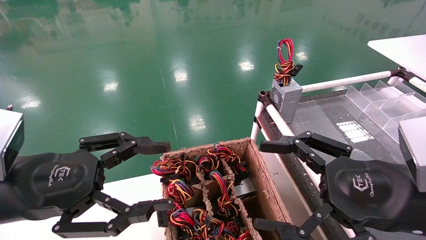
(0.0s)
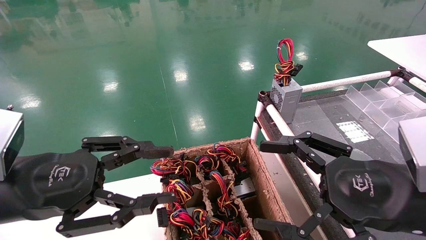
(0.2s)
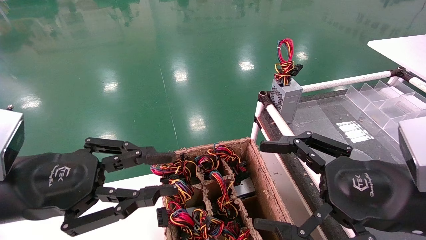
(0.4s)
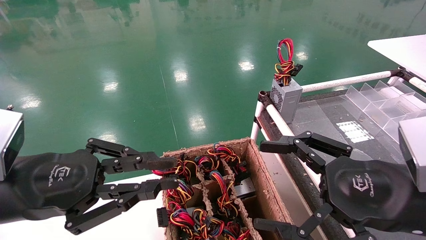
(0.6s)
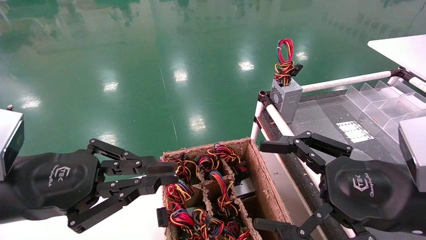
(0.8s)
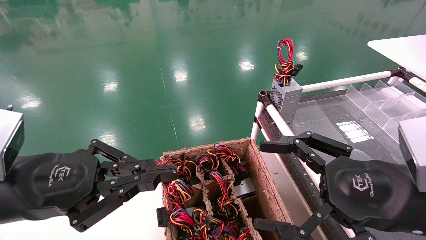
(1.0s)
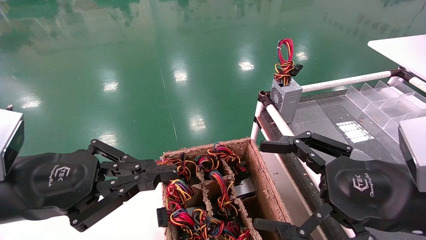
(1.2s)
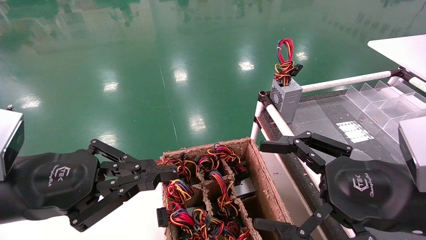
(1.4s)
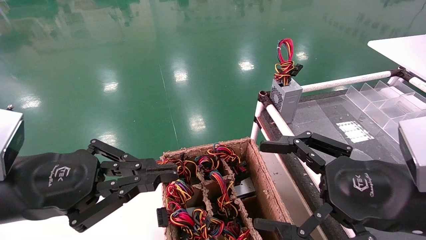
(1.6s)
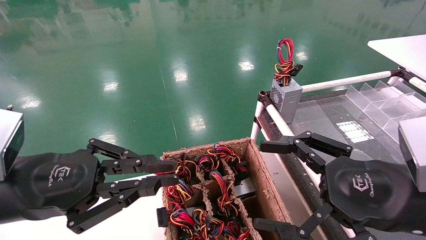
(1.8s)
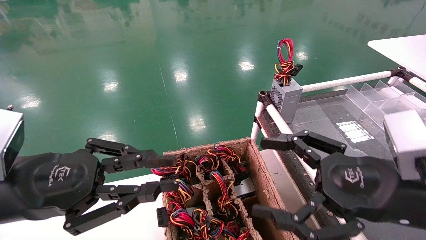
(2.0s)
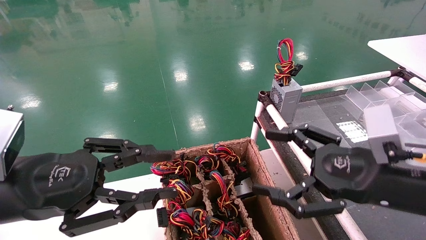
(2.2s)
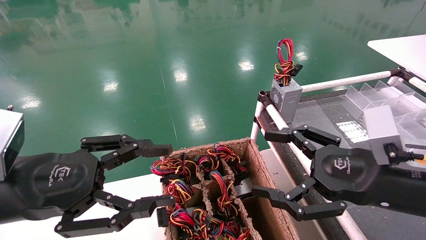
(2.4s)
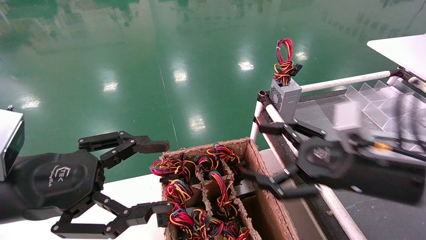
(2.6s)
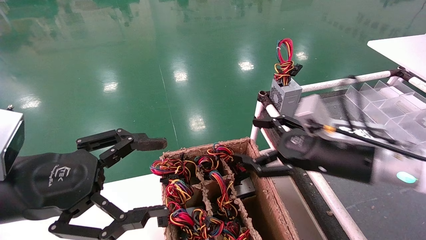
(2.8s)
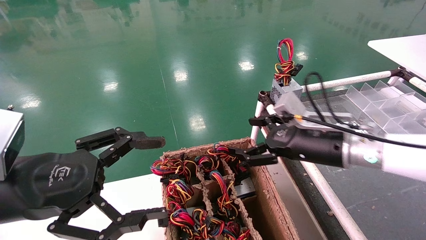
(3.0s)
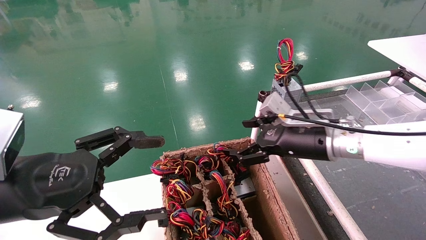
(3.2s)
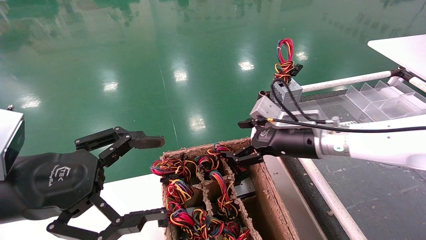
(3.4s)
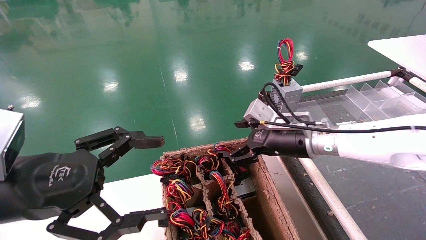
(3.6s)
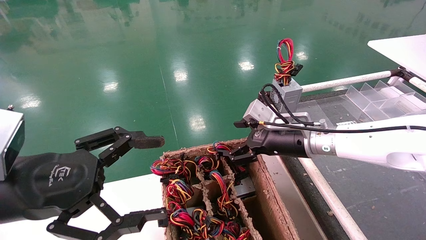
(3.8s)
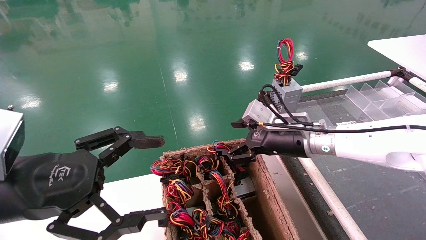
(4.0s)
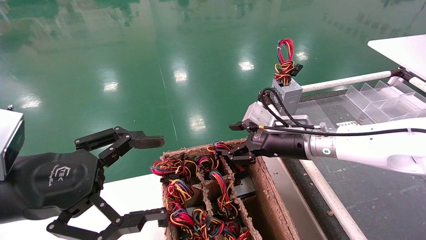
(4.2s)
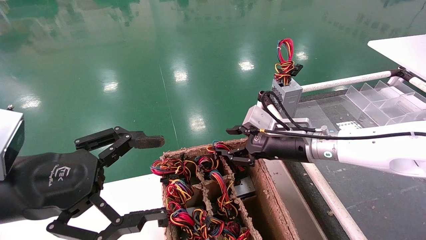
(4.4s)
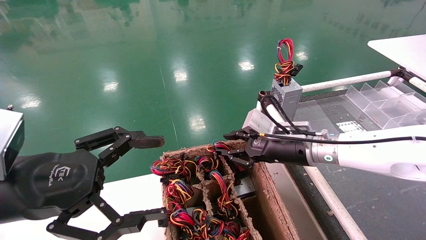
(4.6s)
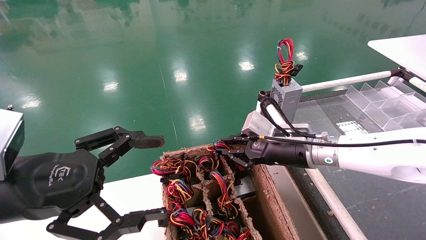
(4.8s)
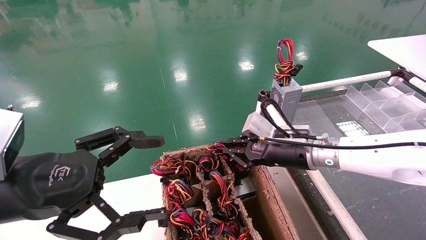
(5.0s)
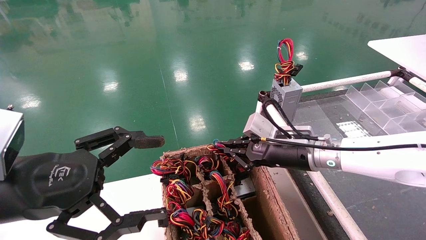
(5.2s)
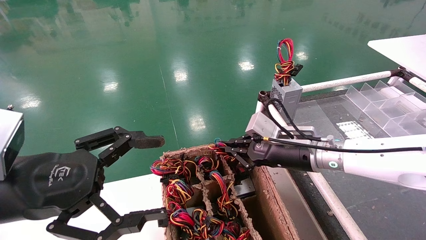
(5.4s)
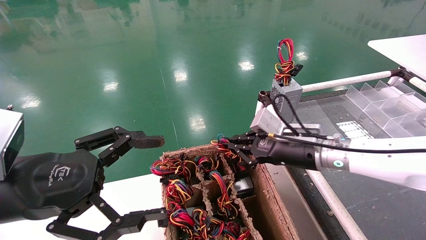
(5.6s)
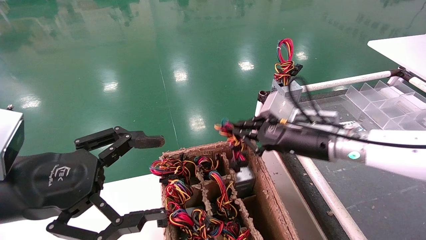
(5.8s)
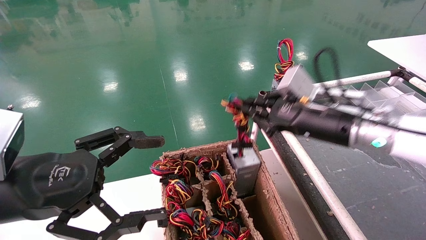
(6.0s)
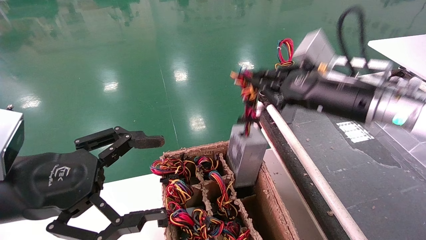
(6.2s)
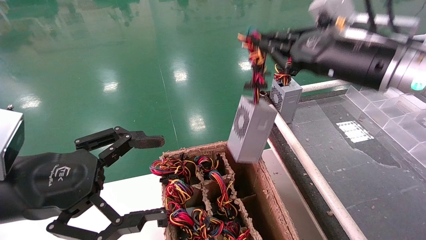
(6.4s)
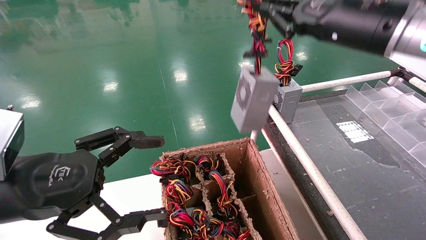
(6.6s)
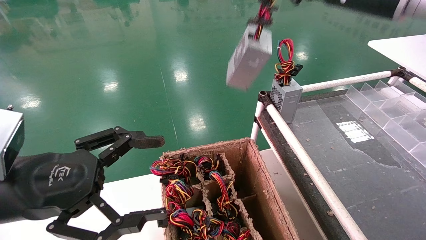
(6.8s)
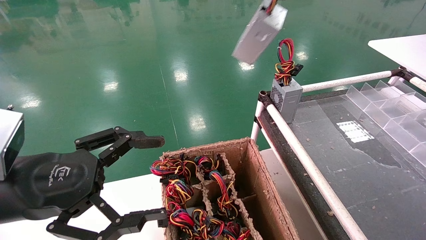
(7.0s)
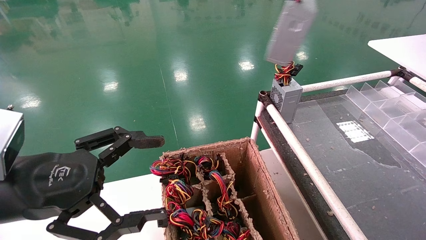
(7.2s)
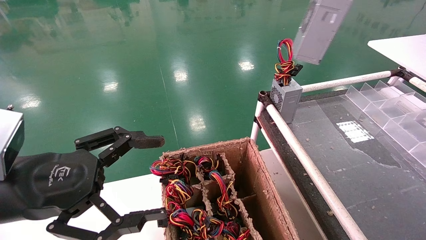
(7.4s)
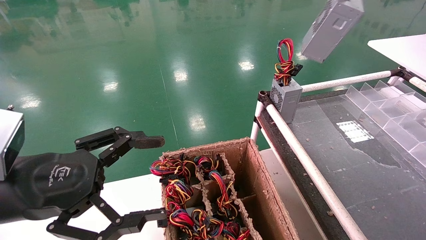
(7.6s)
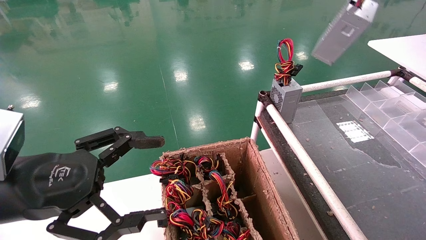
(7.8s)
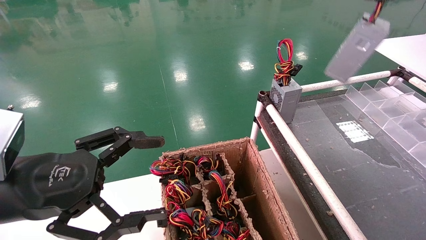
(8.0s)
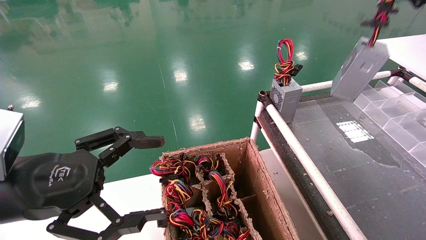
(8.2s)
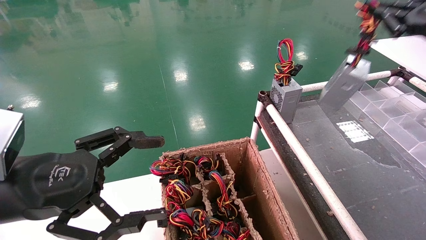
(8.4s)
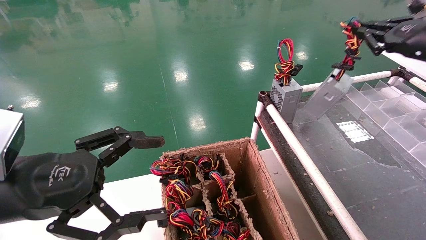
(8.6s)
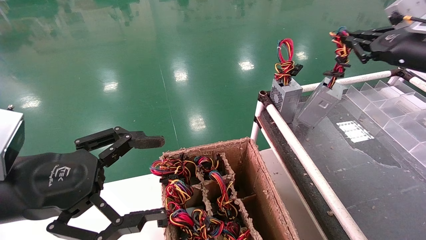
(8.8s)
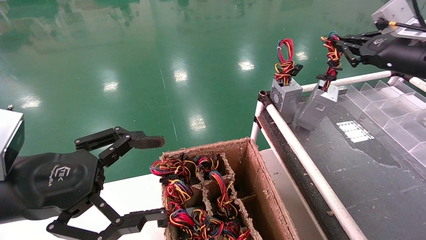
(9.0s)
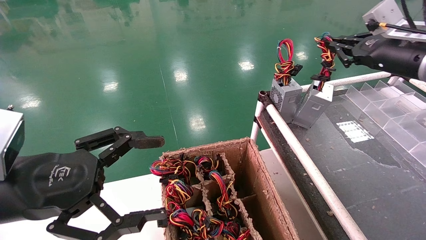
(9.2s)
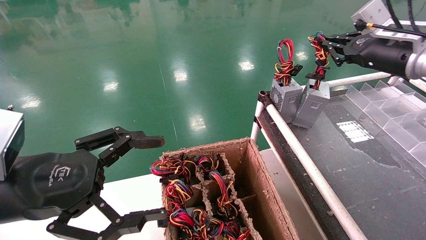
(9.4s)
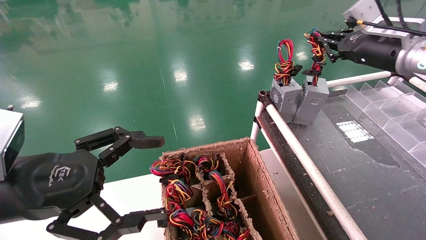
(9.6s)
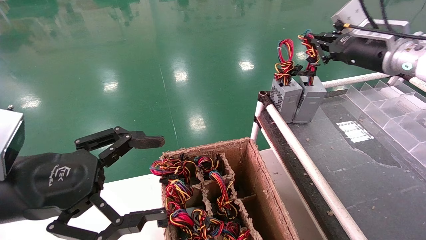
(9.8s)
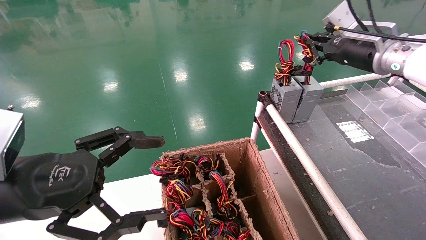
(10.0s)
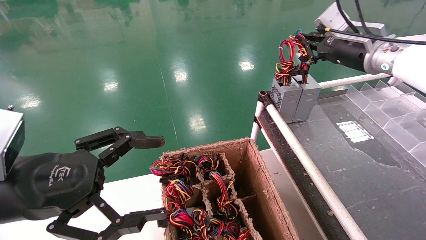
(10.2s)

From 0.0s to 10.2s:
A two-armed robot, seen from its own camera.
Step, from 1.2s to 5.0s: Grab and lift the power supply from the large box.
From 0.0s to 1.4s: The left gripper closes up.
From 1.4s to 3.0s: The right gripper shifts some 15 cm forward. Meanwhile the left gripper opens its fingers.
From 3.0s to 4.4s: The right gripper goes some 5 cm forward, and closes.
From 4.4s to 5.8s: The right gripper ends up approximately 5 cm from where it was, and closes.
From 5.8s to 7.2s: The right gripper travels upward by roughly 30 cm.
From 7.2s to 8.8s: The right gripper is displaced downward, to the right and forward by about 20 cm.
From 8.8s to 10.2s: The right gripper travels to the left and forward by about 10 cm.

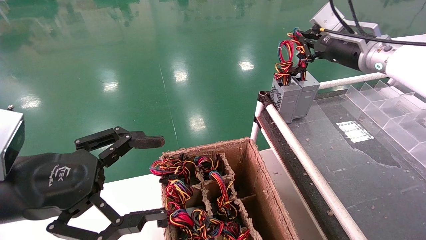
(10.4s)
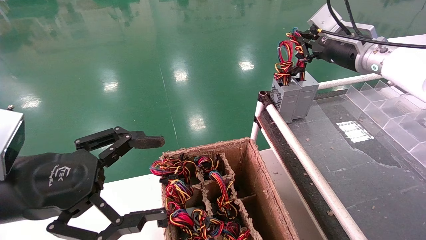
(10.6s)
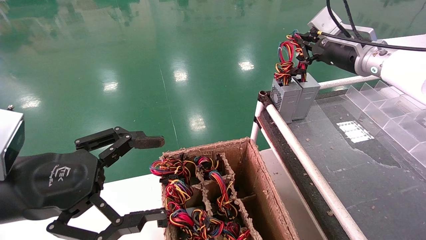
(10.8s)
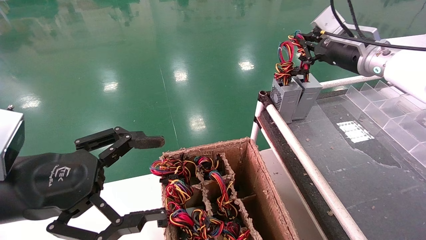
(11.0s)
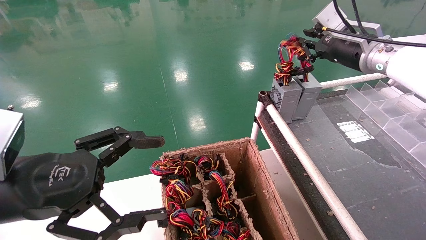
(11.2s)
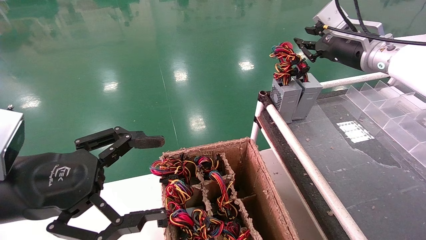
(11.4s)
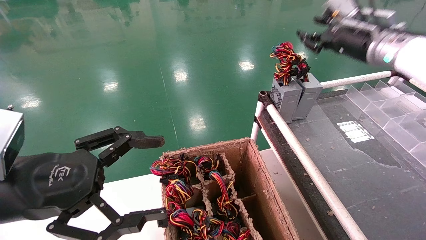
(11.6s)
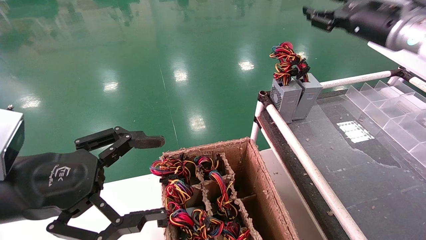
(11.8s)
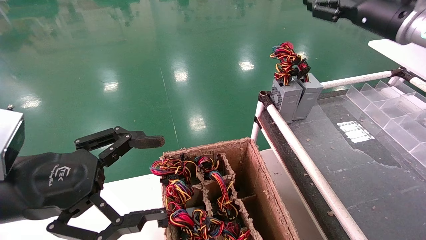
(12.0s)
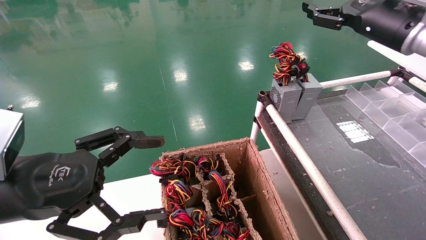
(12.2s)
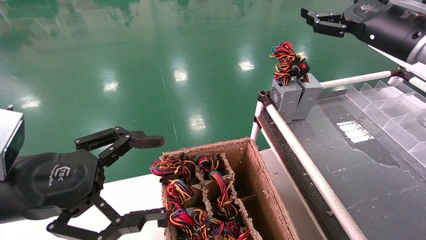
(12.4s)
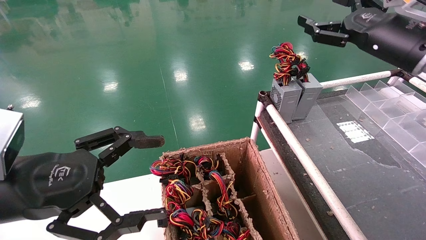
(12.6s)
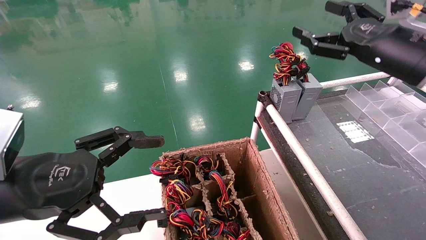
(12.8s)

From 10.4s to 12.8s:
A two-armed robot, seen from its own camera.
From 10.4s to 11.6s: There are only small adjustments of the grippers.
From 11.6s to 12.8s: The right gripper travels backward by roughly 10 cm, and opens.

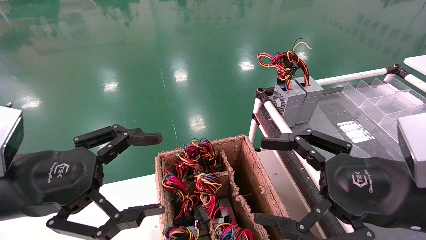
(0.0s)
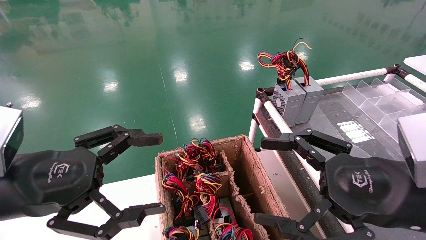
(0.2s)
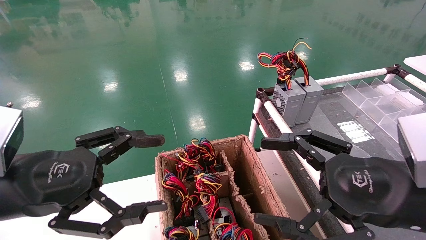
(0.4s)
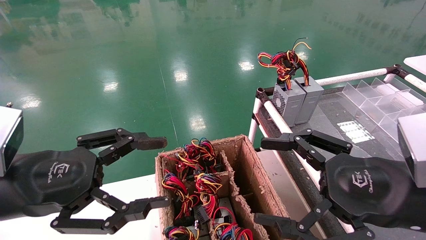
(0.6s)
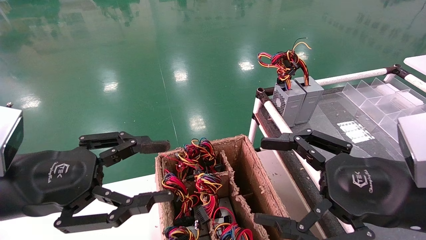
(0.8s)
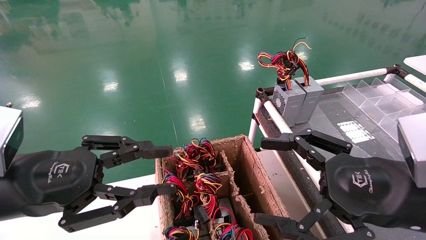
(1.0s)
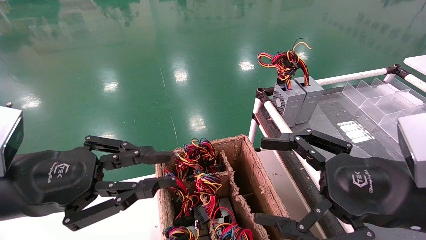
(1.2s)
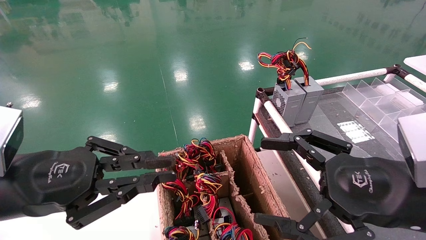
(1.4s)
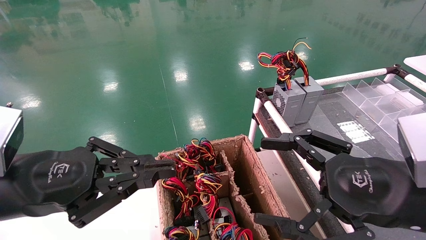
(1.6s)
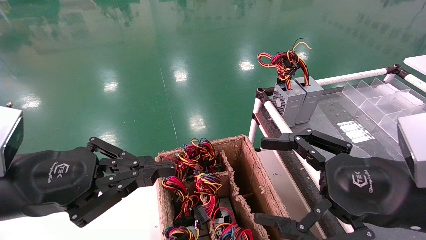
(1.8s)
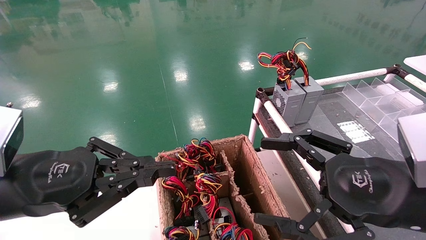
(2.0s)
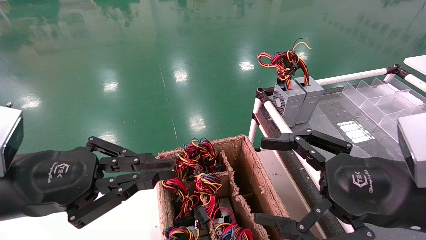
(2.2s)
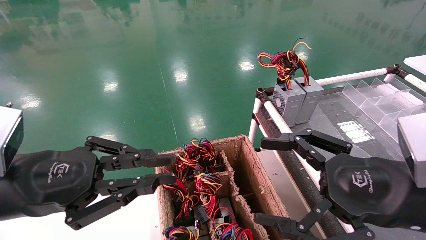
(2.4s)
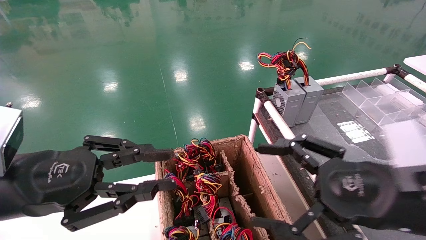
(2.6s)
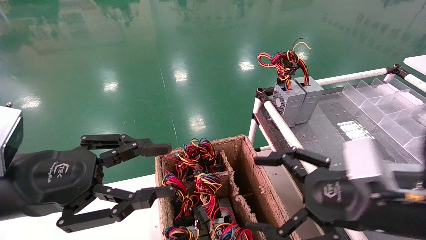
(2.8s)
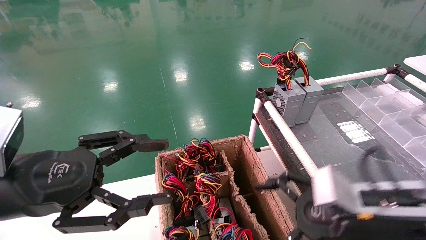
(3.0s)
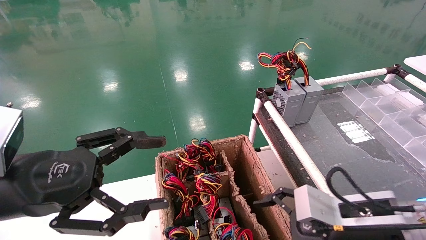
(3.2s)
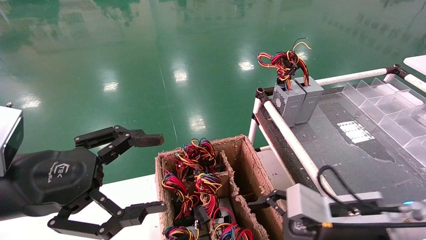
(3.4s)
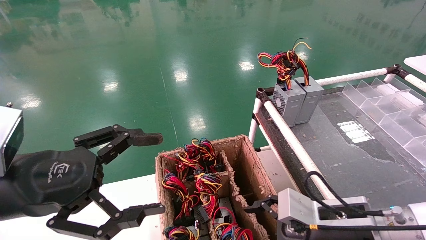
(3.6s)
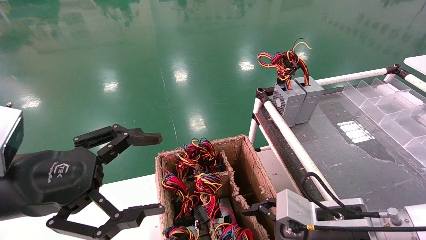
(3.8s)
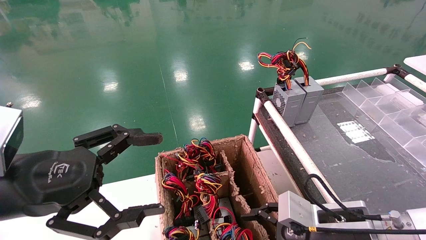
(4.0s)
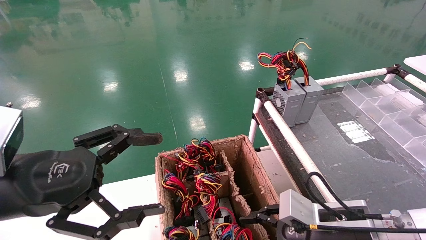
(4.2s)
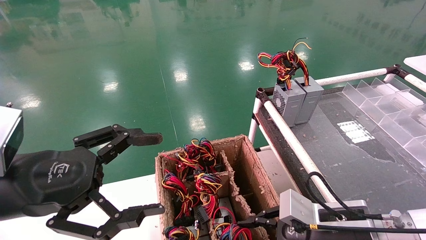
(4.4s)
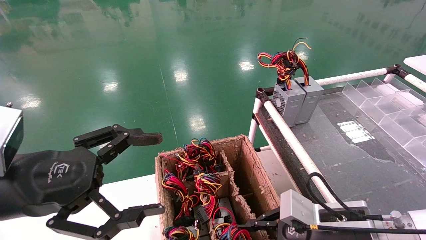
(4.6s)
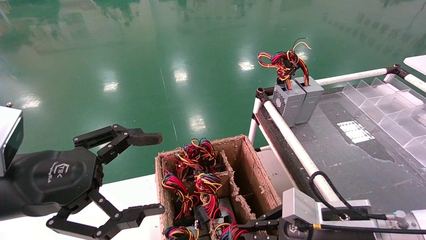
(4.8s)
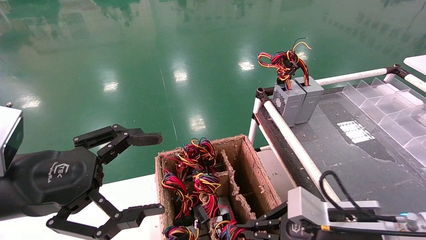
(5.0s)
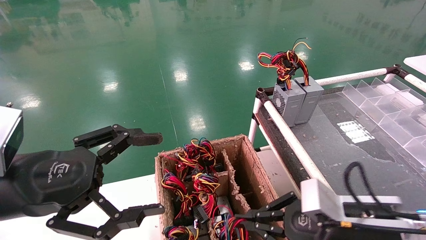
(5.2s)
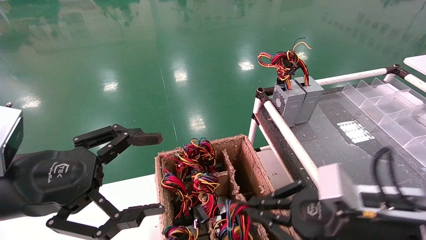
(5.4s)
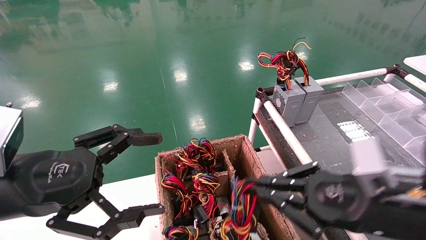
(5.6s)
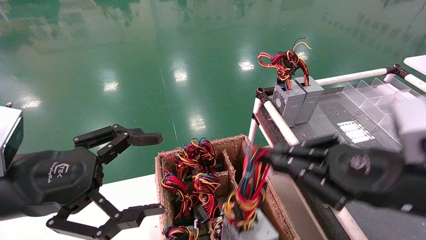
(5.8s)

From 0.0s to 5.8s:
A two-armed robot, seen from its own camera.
Step, from 1.6s to 5.0s: Grab and lift the power supply from the large box.
From 0.0s to 1.4s: The left gripper closes its fingers.
From 1.4s to 2.8s: There are only small adjustments of the grippers.
From 2.8s to 4.4s: The right gripper heads downward, covering some 10 cm, and closes up, while the left gripper opens its fingers.
From 4.4s to 5.8s: The right gripper heads upward, covering roughly 10 cm, and closes.
